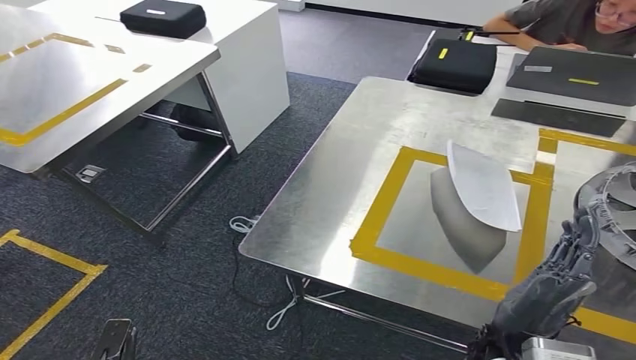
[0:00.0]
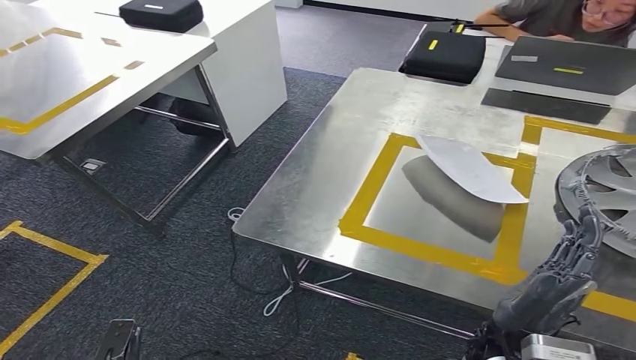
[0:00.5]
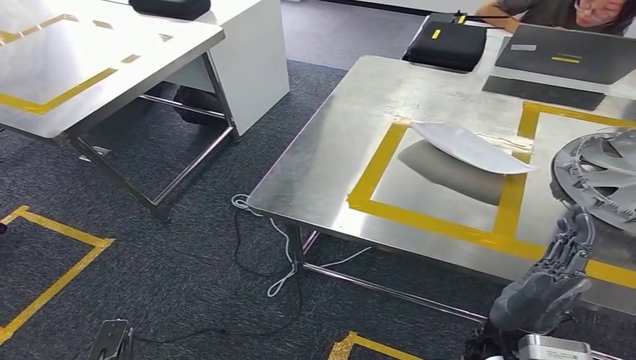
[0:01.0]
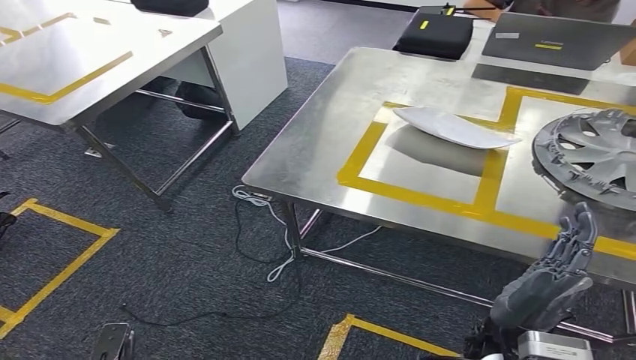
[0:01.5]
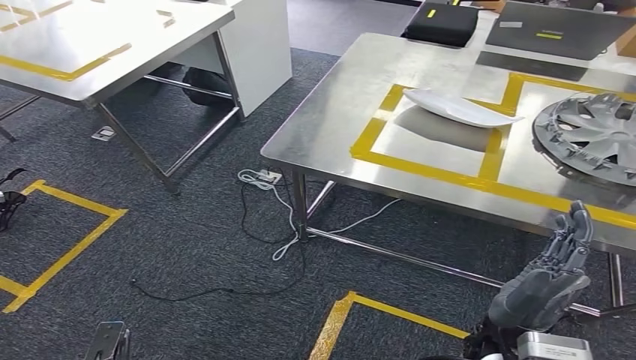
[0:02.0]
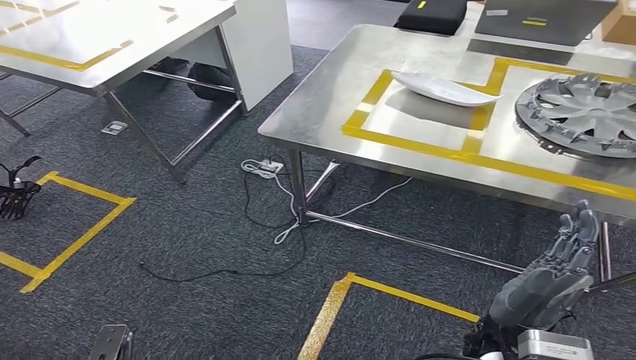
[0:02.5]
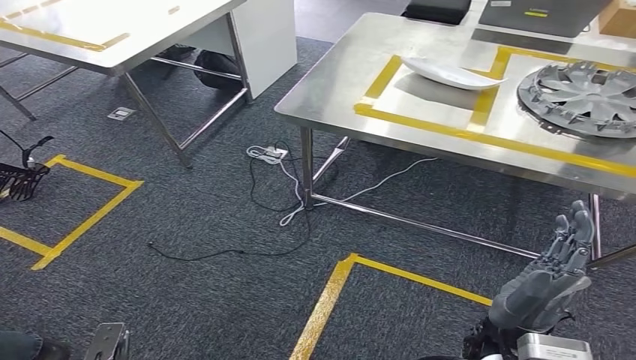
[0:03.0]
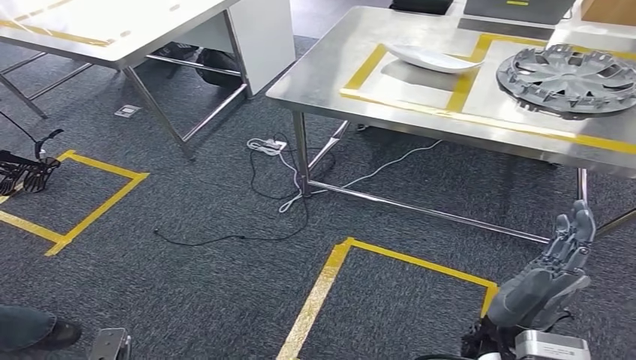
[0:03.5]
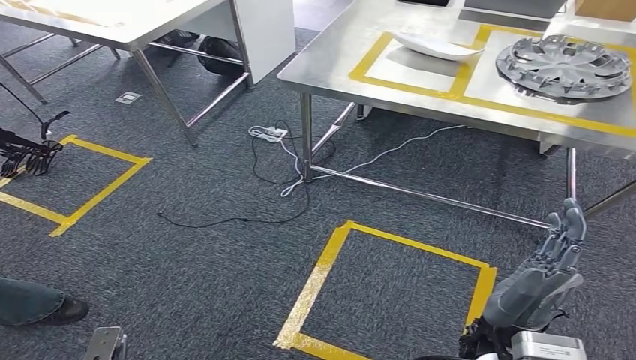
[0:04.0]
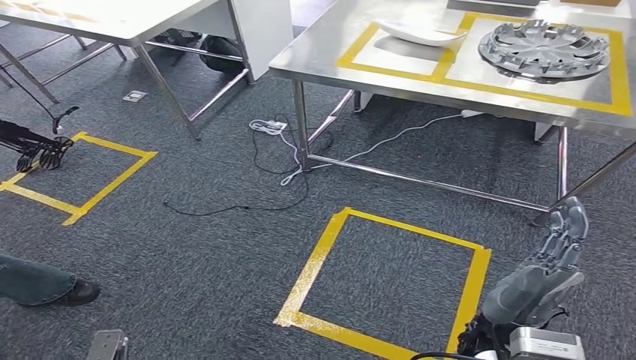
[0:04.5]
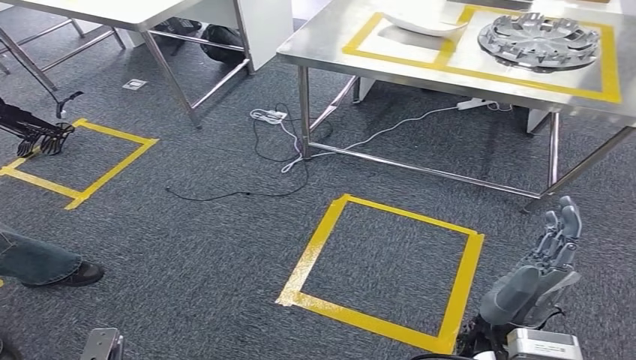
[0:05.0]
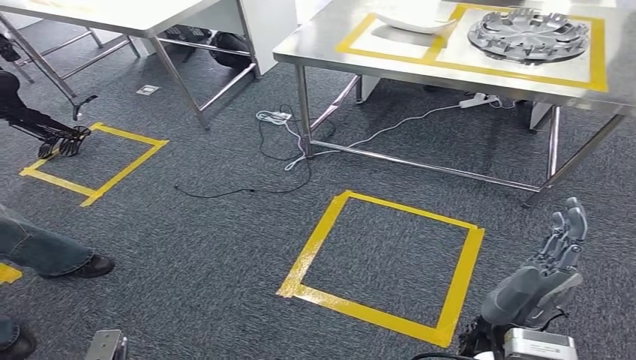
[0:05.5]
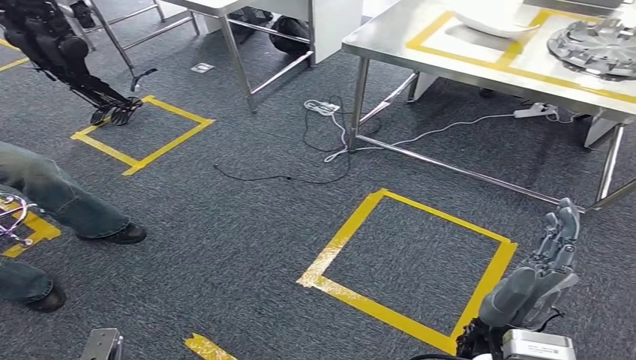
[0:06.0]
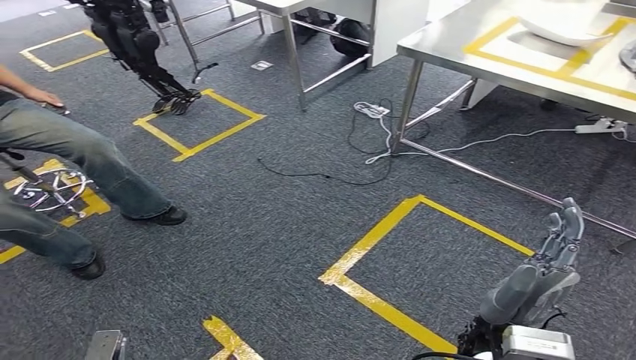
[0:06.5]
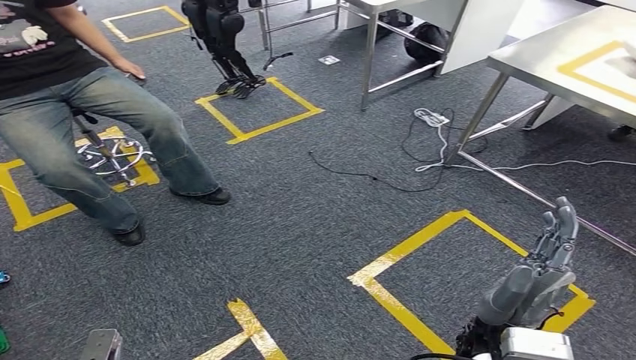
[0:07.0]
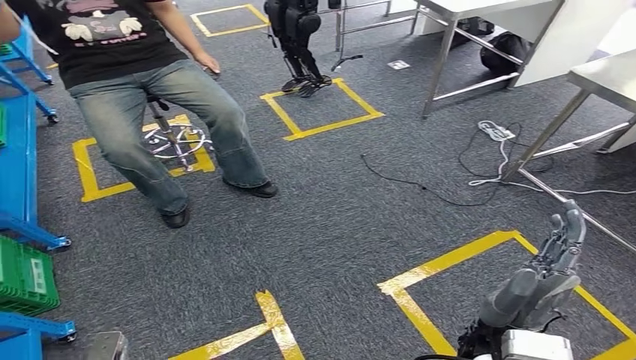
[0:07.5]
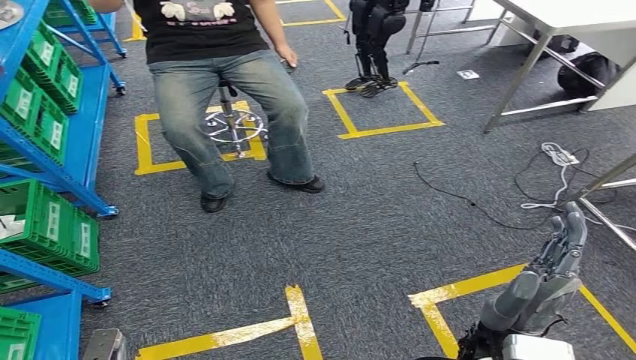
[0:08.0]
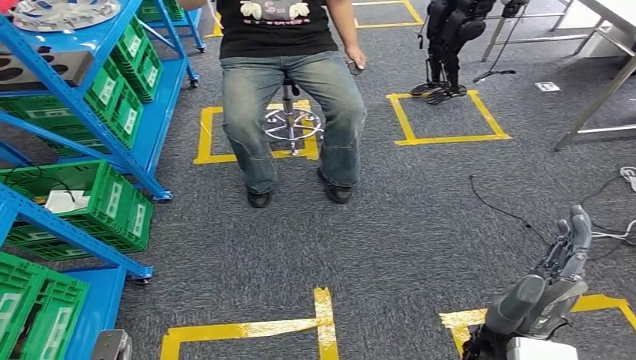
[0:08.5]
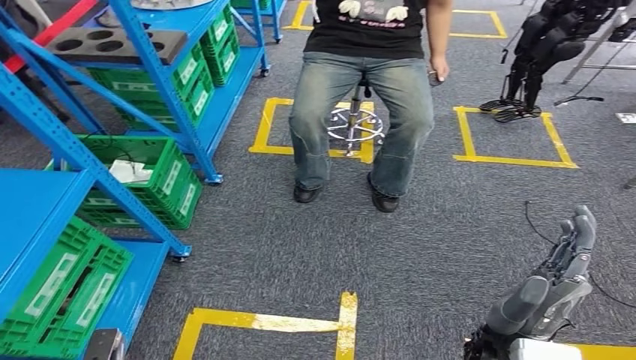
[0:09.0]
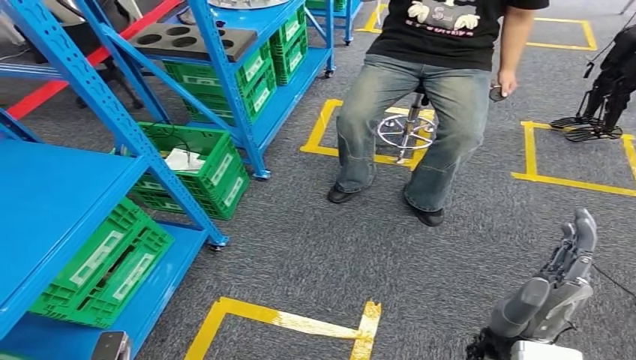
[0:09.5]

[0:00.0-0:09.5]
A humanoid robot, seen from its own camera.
Step, 0:00.0 to 0:03.0: Insert the small parts into the corresponding holes on the workbench.

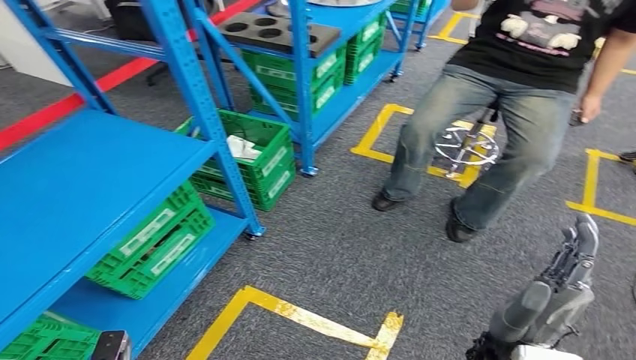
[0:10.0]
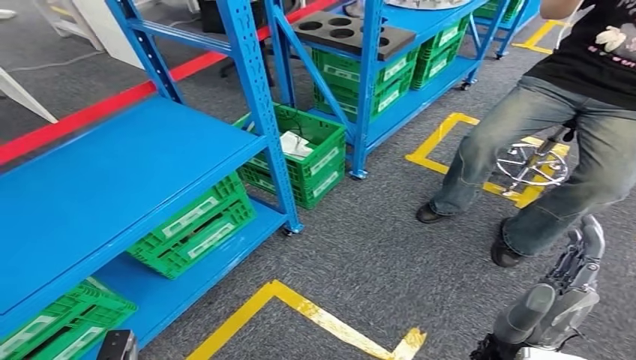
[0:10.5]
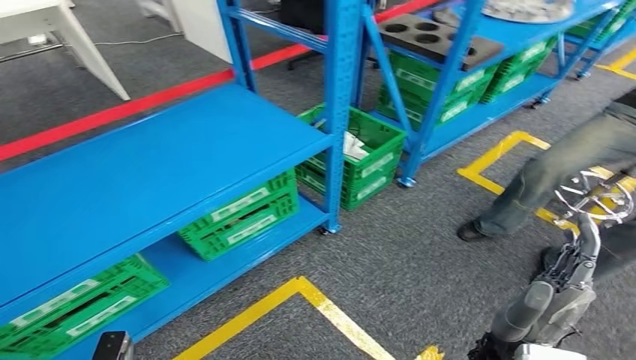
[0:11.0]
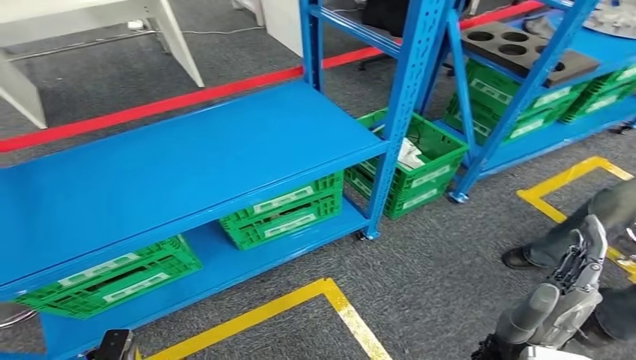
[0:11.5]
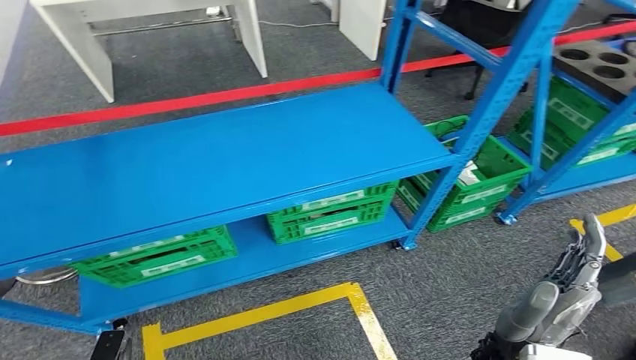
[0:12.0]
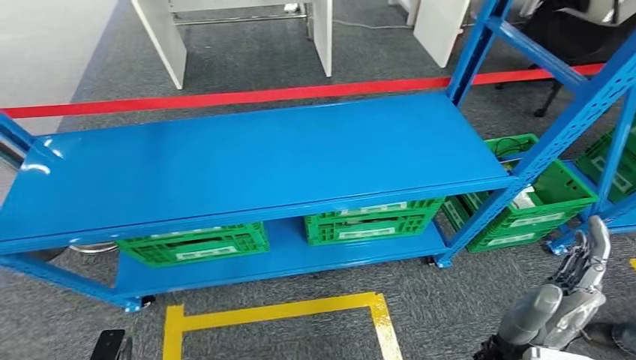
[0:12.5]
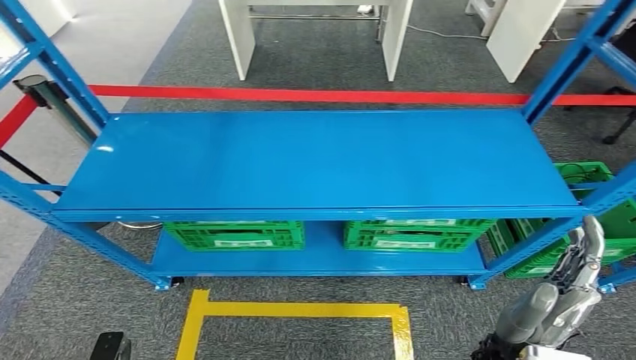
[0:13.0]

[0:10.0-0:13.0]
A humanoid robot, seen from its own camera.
Step, 0:10.0 to 0:13.0: Move to the initial position of the workbench.
